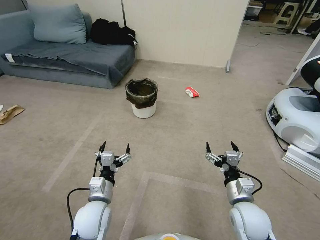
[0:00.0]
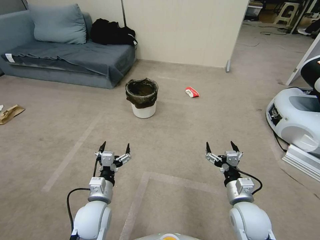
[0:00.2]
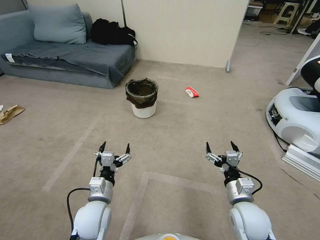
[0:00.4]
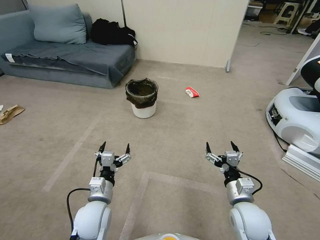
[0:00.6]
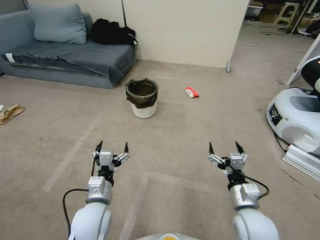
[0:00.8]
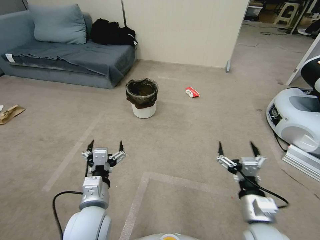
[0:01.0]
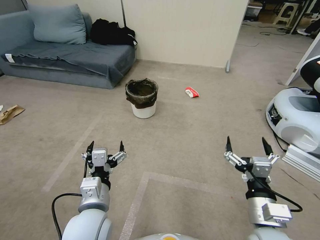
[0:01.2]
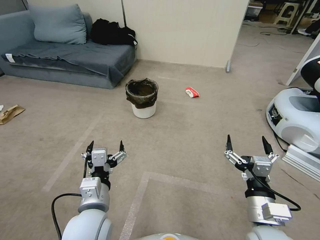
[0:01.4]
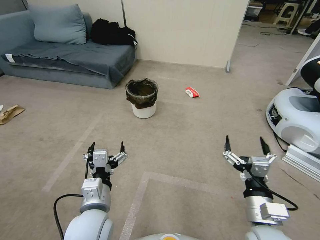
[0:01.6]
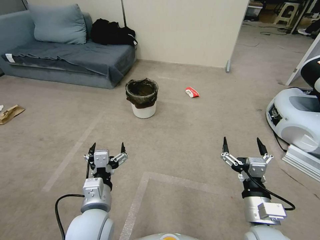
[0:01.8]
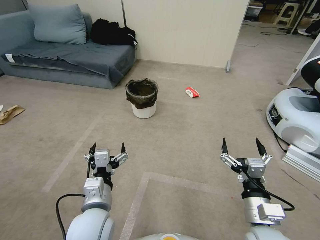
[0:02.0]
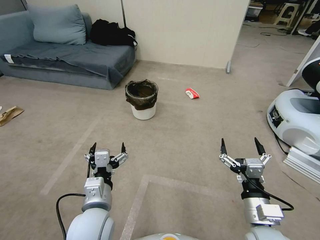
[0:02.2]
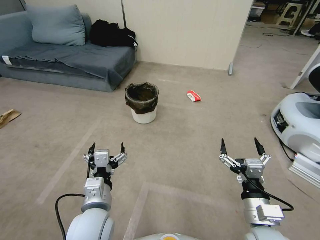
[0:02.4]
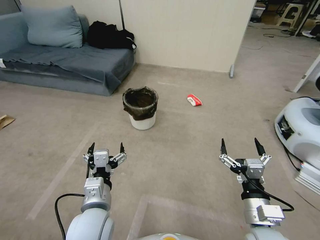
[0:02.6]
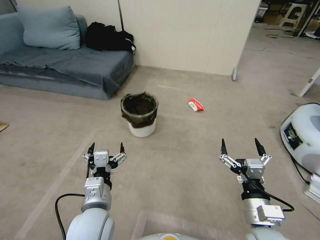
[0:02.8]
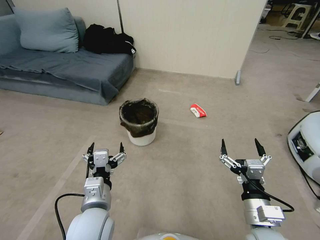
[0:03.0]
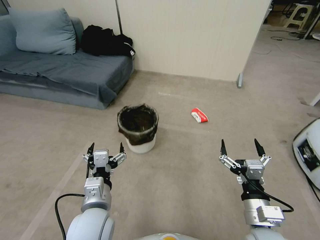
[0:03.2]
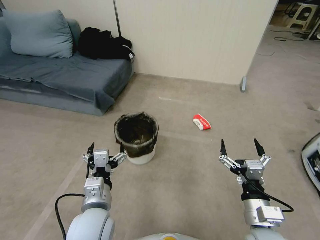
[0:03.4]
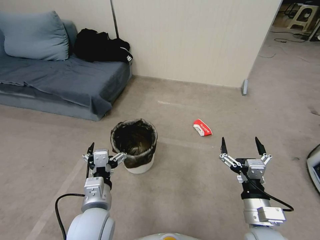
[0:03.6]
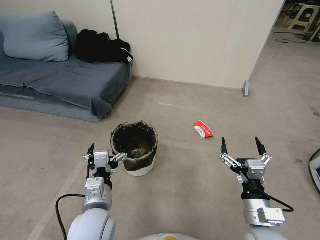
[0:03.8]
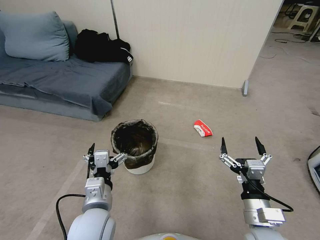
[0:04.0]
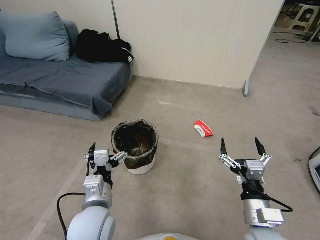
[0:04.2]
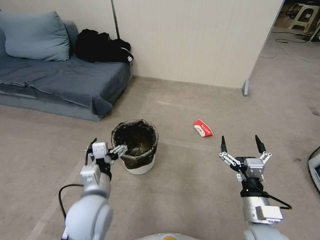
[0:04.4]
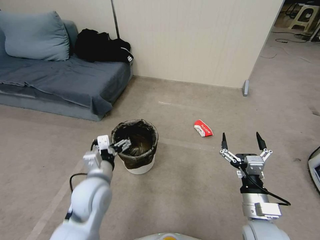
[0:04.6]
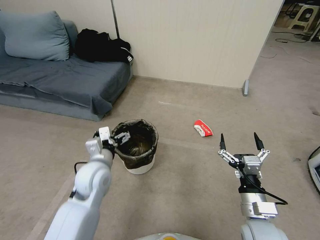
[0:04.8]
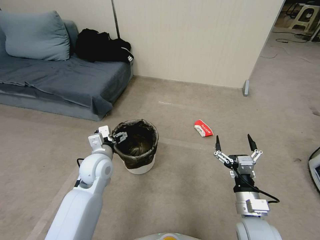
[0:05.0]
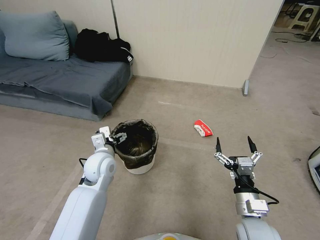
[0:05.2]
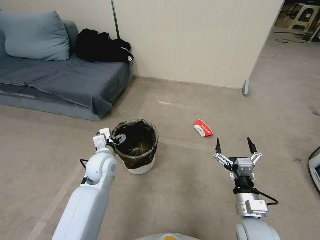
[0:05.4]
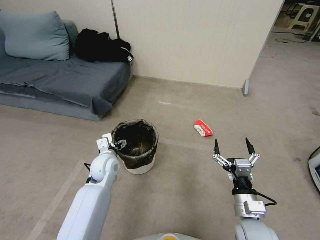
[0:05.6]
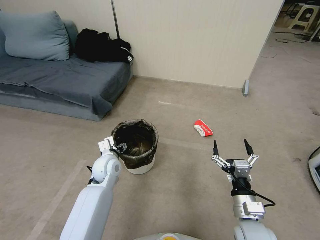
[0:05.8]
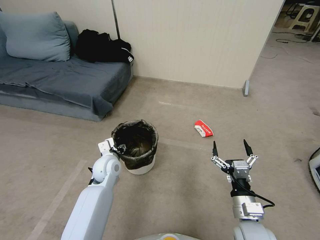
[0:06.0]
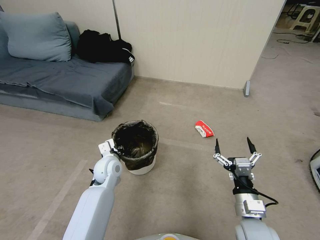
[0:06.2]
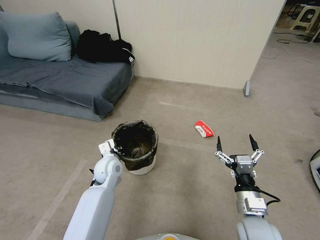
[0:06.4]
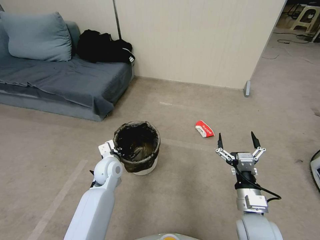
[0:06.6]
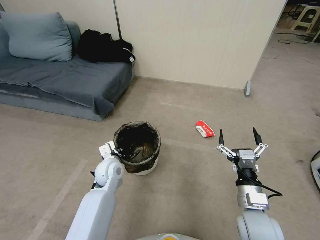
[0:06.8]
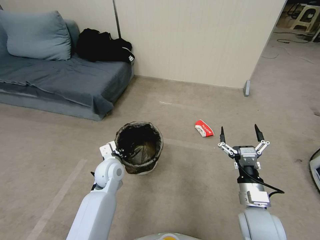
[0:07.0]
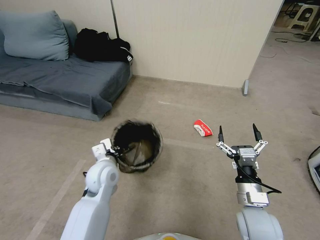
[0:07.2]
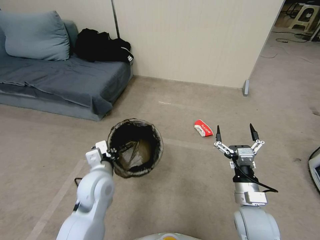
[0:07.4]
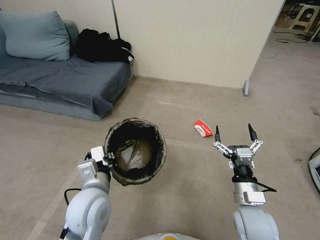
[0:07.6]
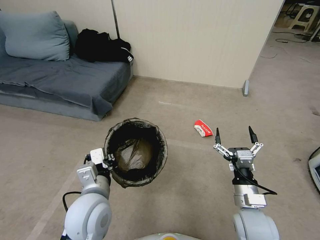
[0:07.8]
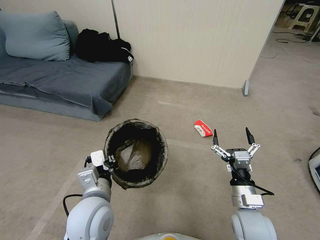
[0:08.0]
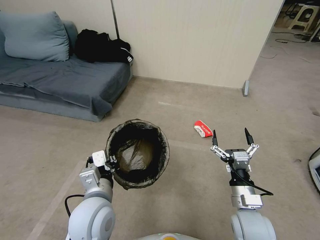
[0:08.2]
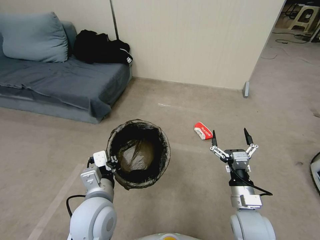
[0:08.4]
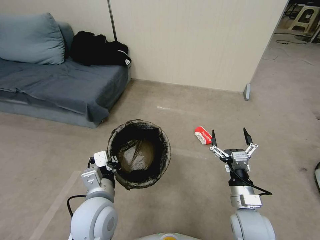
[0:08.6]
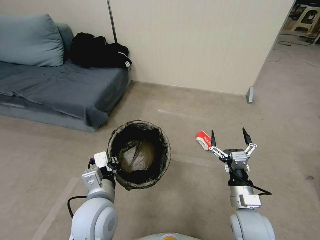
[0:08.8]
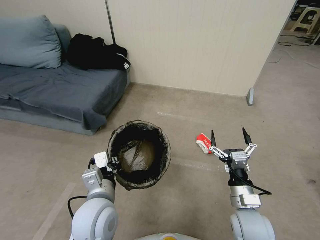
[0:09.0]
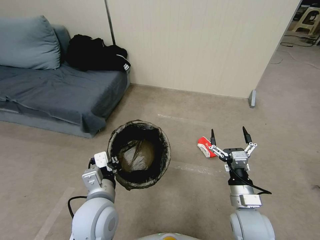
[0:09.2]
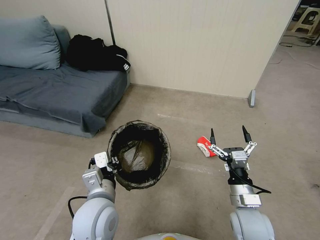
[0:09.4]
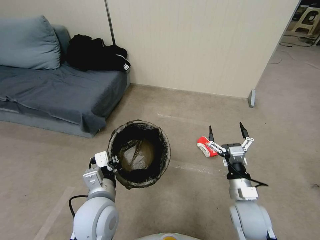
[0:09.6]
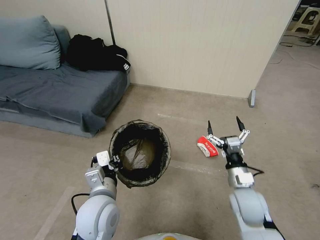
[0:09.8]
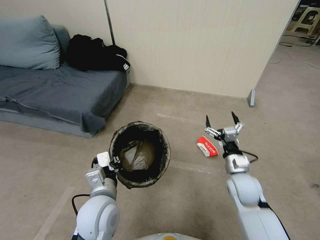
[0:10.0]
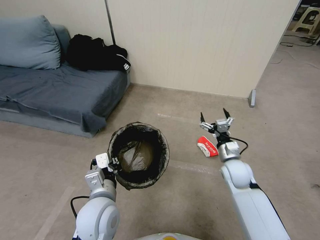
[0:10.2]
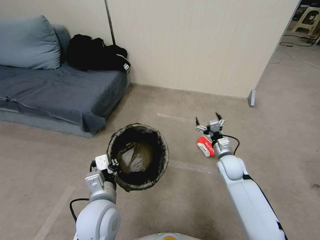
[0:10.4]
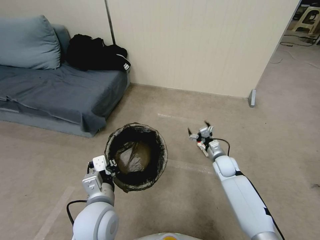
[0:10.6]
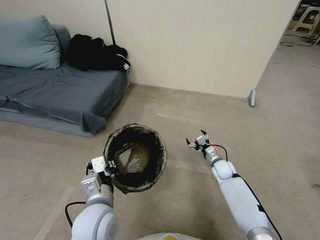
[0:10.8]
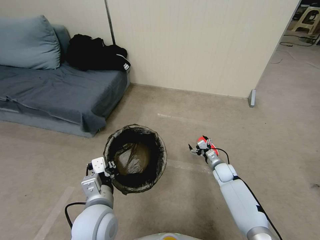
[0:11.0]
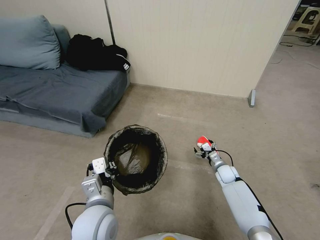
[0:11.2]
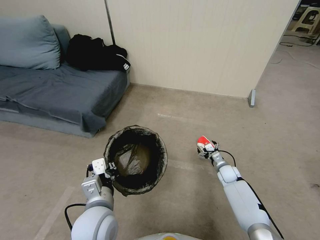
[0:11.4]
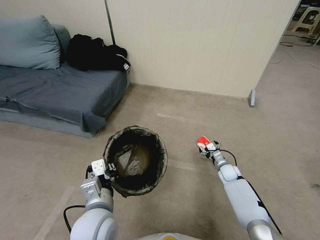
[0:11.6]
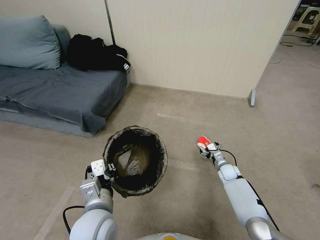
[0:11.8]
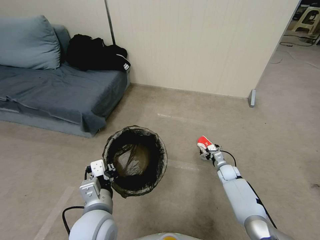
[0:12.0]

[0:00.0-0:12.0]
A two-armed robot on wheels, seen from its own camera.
Task of the whole recording: Pick up the trash bin, then pick up the garbage from the floor and place it into the trash bin.
0:04.4 to 0:06.0: The left gripper is displaced forward and downward by roughly 20 cm, and closes.
0:06.0 to 0:07.6: The left gripper moves backward and upward, approximately 20 cm, and closes its fingers.
0:09.0 to 0:10.4: The right gripper goes roughly 20 cm forward.
0:10.4 to 0:12.0: The right gripper travels downward by about 15 cm.

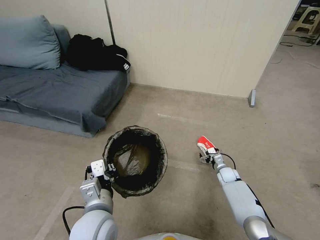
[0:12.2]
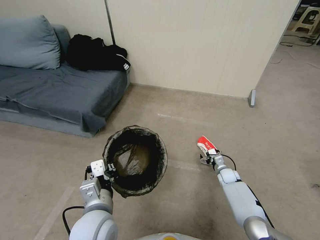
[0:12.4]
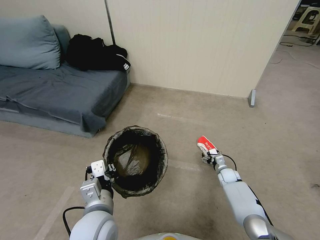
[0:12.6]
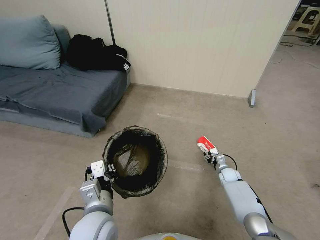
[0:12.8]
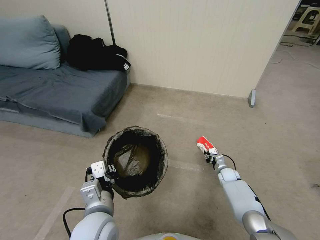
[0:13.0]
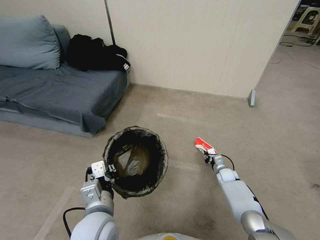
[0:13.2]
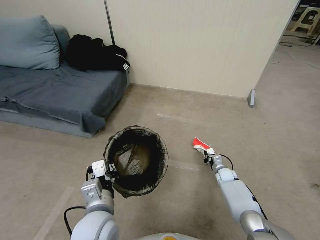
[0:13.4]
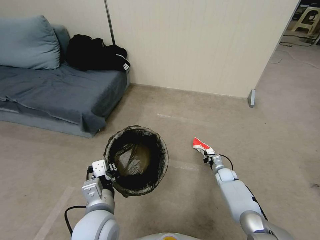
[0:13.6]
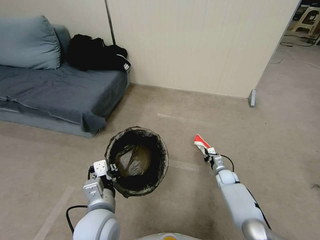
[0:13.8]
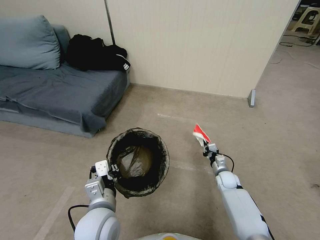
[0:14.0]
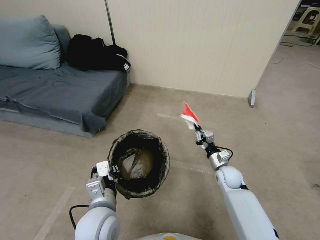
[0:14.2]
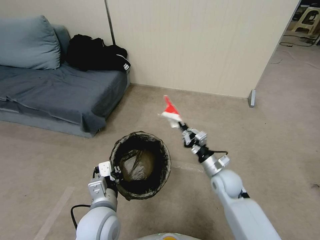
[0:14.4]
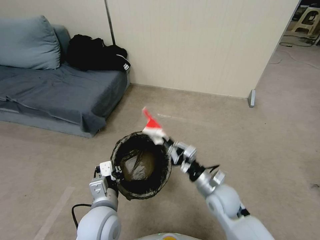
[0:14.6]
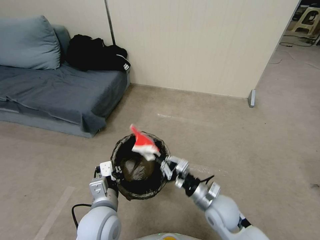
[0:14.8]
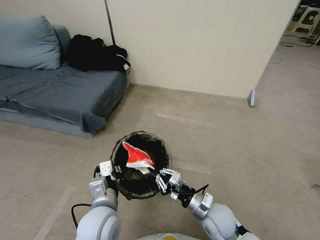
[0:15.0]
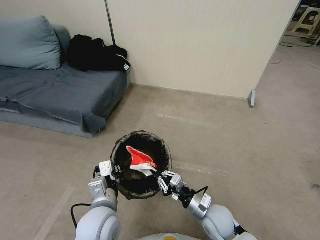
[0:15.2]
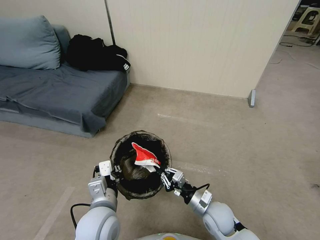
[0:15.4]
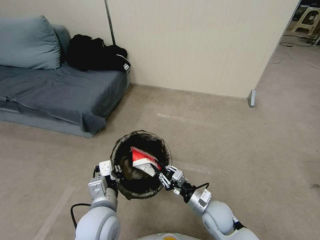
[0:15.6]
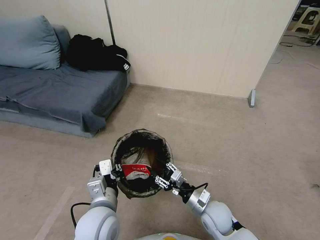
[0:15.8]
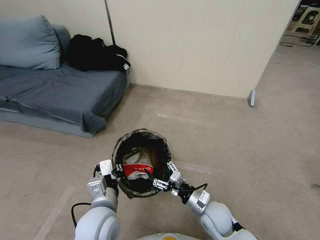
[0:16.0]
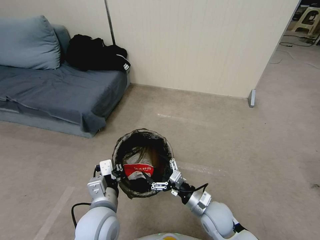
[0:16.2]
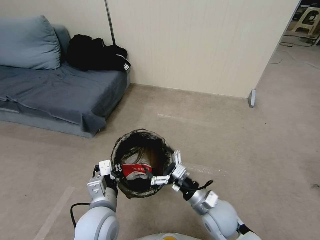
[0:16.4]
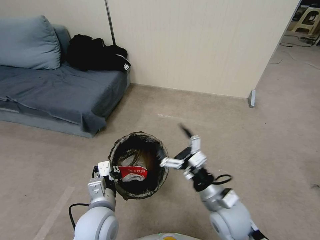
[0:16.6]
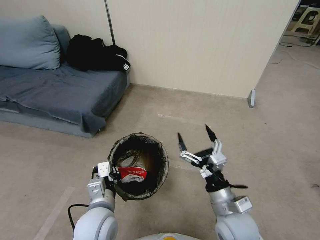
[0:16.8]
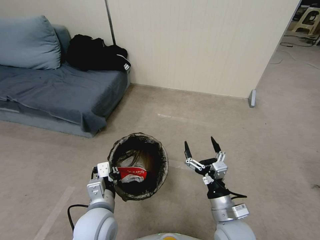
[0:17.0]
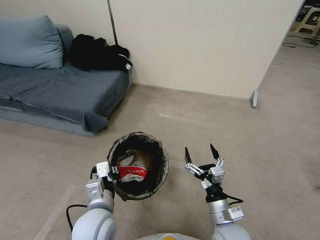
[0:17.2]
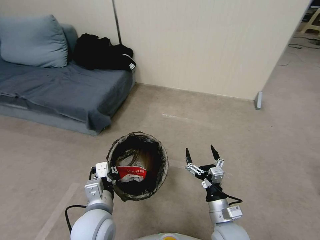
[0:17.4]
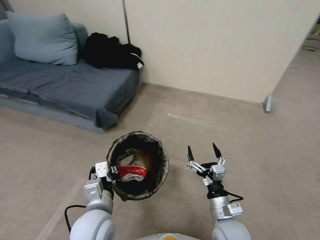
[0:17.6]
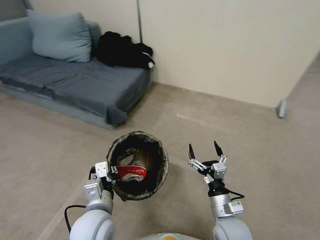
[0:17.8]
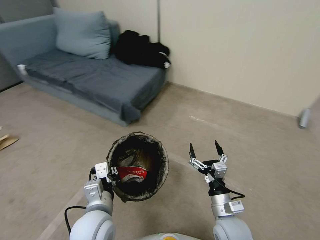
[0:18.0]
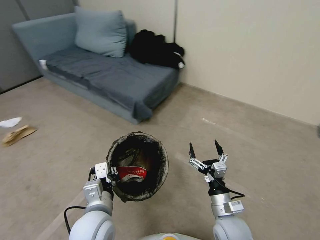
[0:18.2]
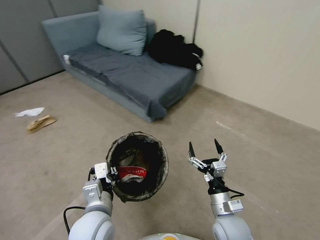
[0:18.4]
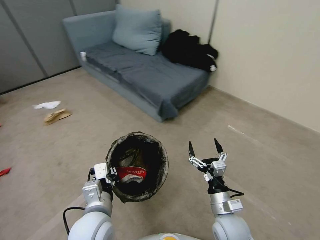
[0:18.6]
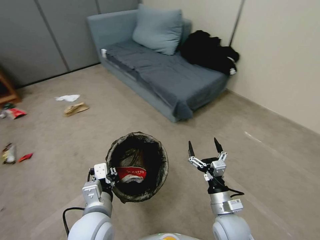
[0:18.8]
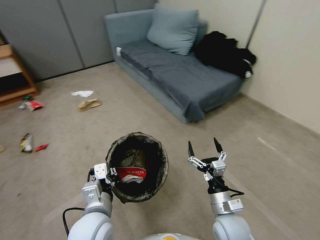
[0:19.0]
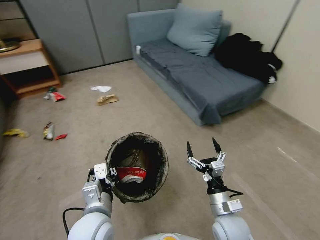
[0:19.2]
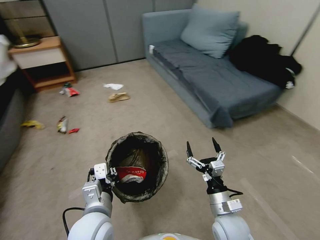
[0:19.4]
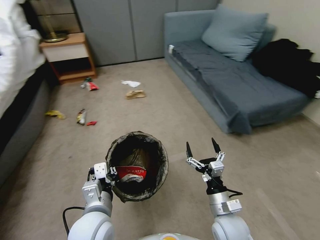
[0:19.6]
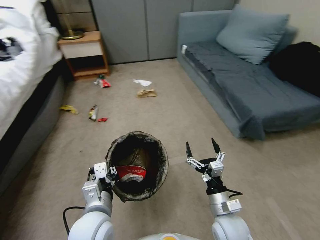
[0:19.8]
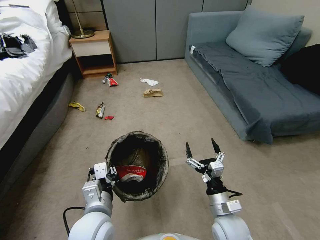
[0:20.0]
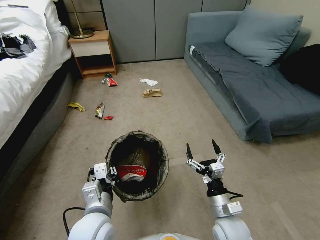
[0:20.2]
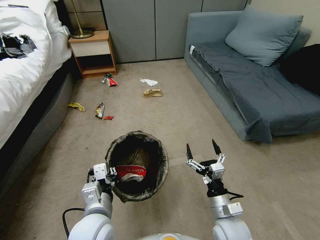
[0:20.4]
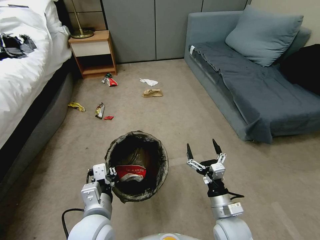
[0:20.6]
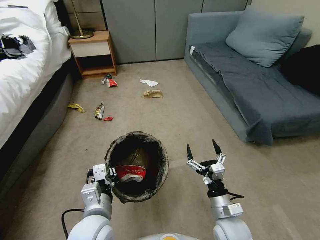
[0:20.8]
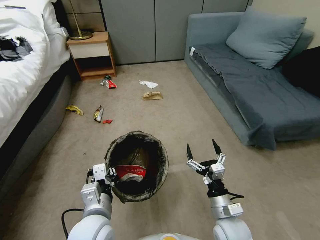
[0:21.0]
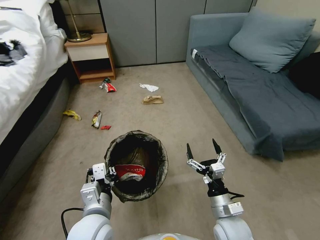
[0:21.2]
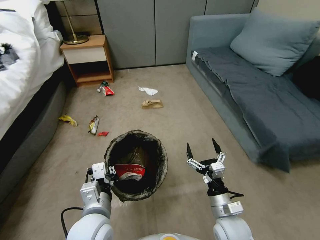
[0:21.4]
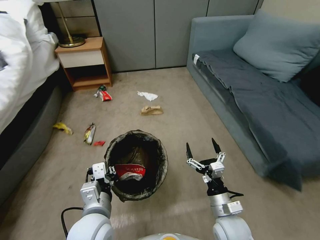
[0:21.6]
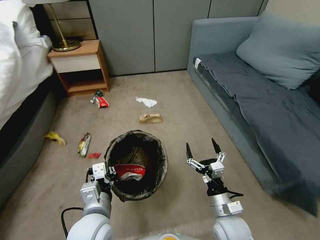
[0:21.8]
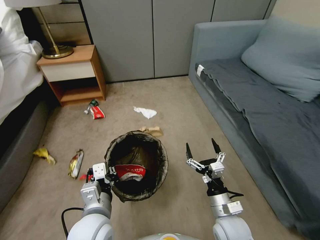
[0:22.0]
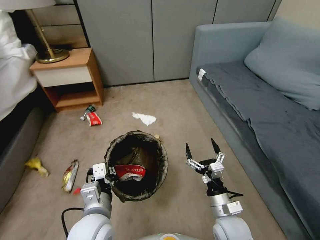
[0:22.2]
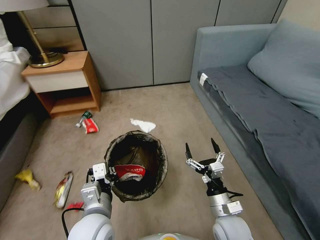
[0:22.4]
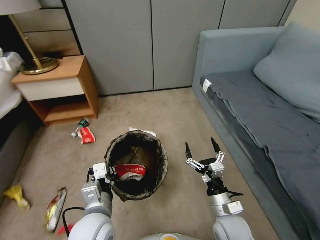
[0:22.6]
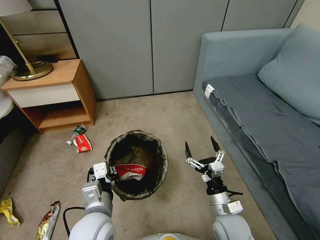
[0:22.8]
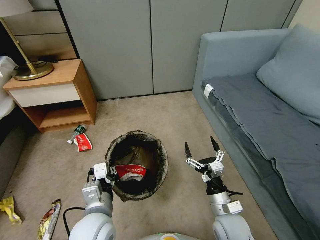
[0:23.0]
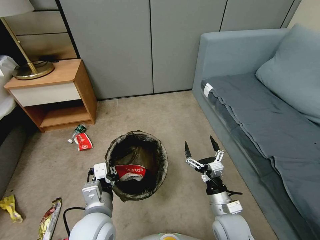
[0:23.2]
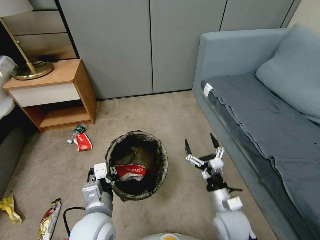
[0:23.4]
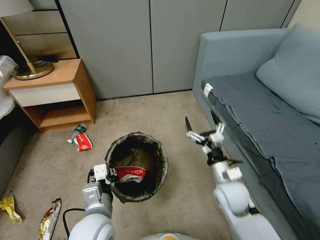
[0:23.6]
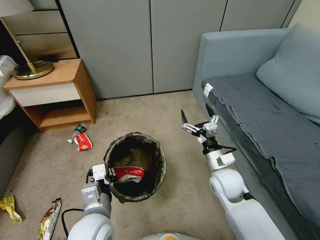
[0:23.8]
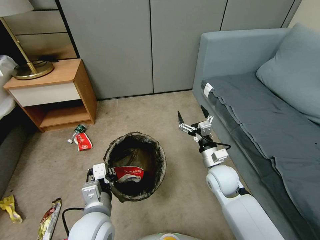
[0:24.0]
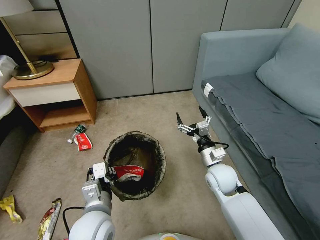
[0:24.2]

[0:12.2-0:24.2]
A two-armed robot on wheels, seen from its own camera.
Task of the whole recording: Pick up the trash bin, then pick up the garbage from the floor and place it into the trash bin.
0:12.2 to 0:13.8: The right gripper closes up.
0:13.8 to 0:15.2: The right gripper heads backward, upward and to the left, covering about 25 cm.
0:15.2 to 0:16.6: The right gripper travels upward by approximately 10 cm, and opens its fingers.
0:16.6 to 0:18.2: The right gripper shifts approximately 10 cm downward.
0:22.6 to 0:24.2: The right gripper moves forward, some 15 cm.
